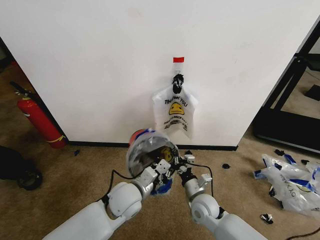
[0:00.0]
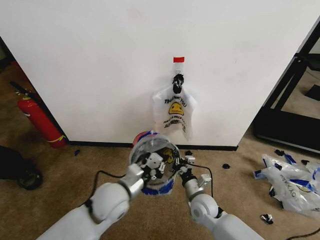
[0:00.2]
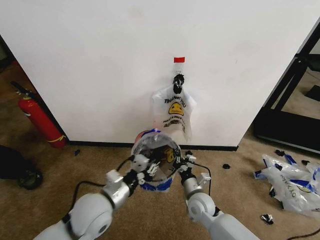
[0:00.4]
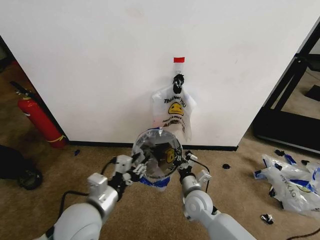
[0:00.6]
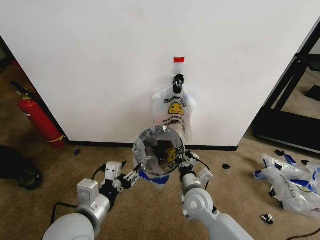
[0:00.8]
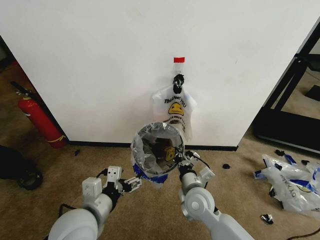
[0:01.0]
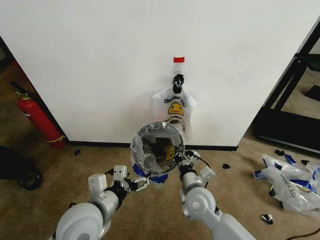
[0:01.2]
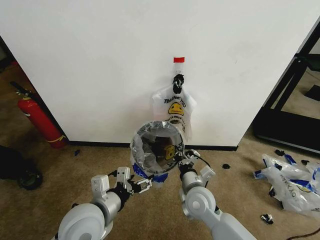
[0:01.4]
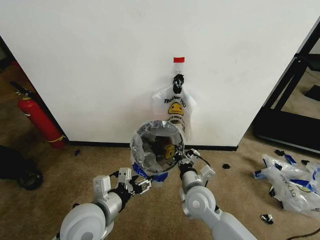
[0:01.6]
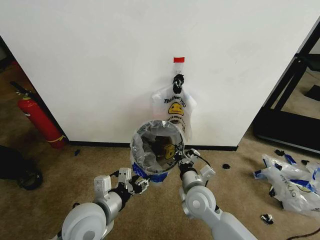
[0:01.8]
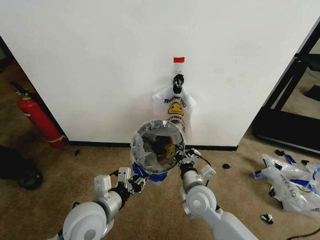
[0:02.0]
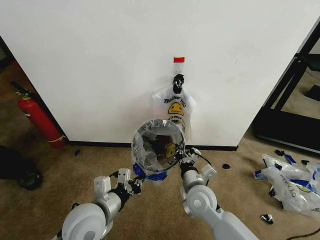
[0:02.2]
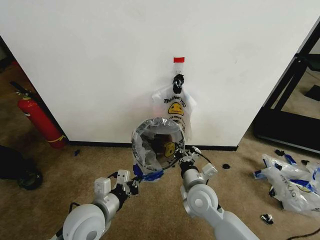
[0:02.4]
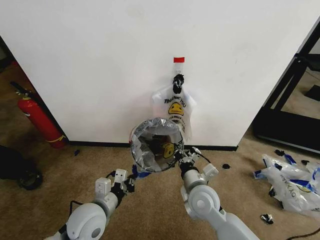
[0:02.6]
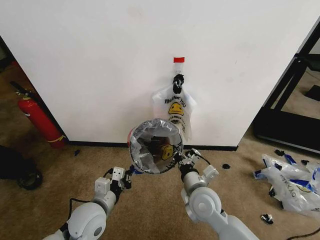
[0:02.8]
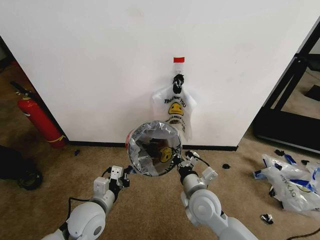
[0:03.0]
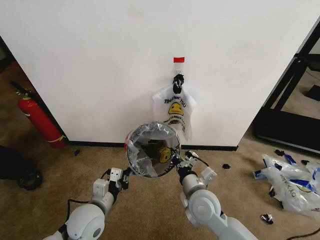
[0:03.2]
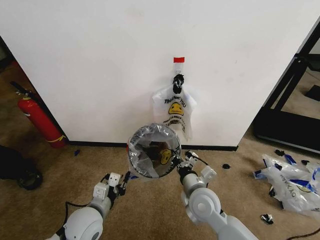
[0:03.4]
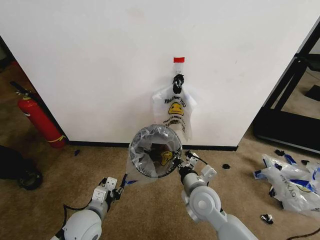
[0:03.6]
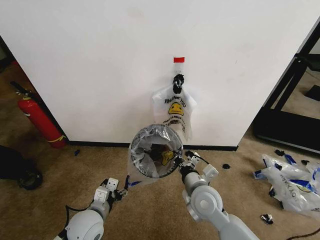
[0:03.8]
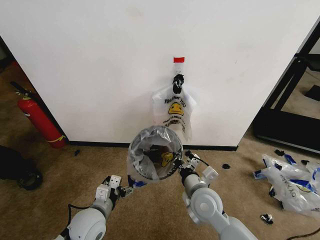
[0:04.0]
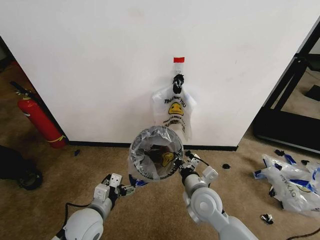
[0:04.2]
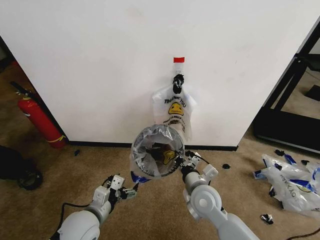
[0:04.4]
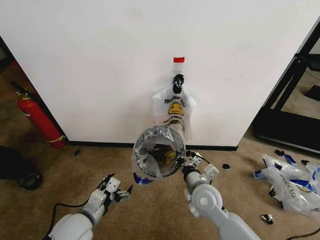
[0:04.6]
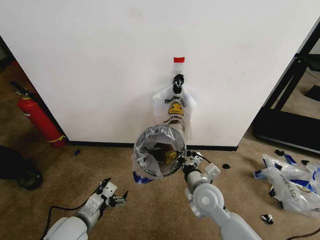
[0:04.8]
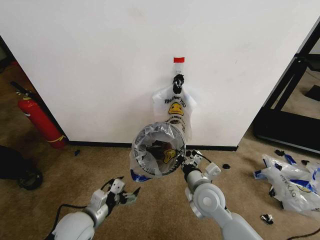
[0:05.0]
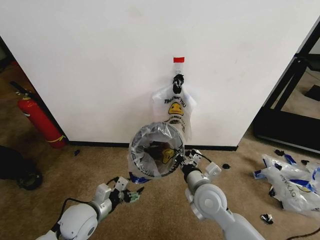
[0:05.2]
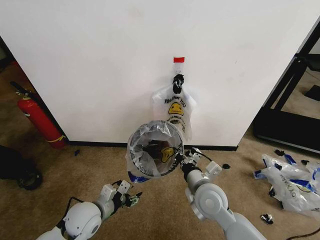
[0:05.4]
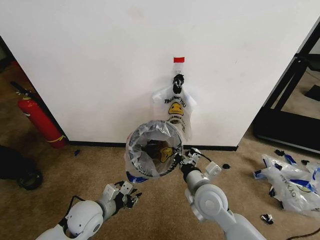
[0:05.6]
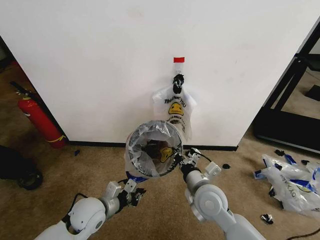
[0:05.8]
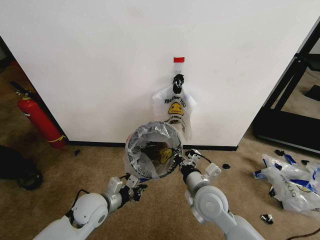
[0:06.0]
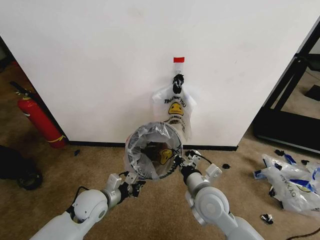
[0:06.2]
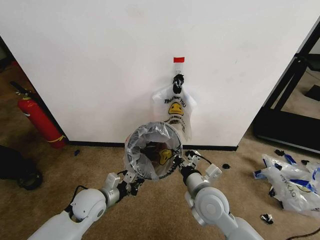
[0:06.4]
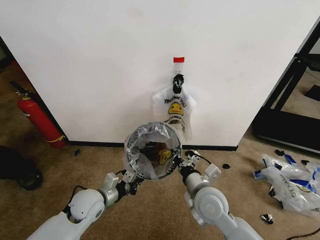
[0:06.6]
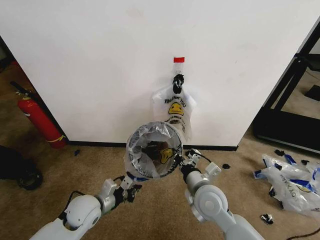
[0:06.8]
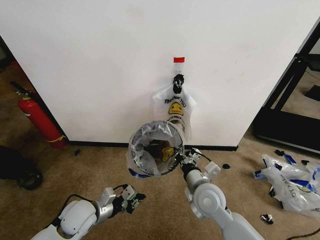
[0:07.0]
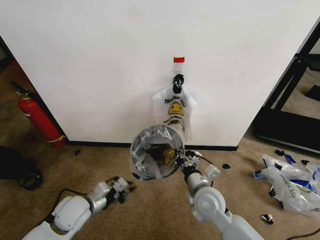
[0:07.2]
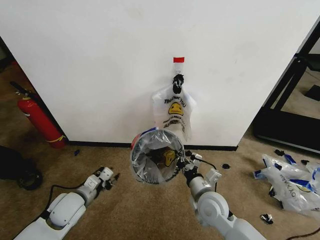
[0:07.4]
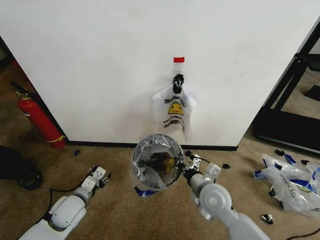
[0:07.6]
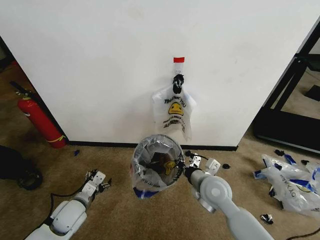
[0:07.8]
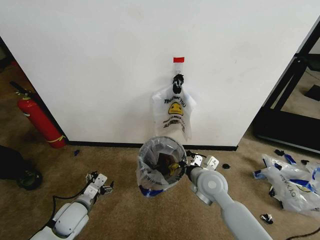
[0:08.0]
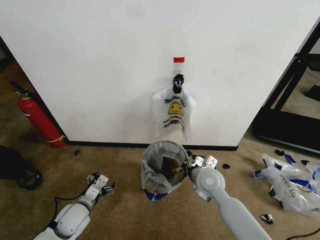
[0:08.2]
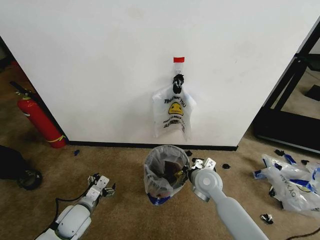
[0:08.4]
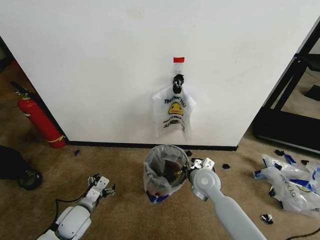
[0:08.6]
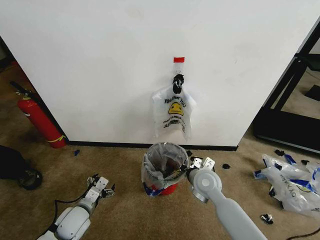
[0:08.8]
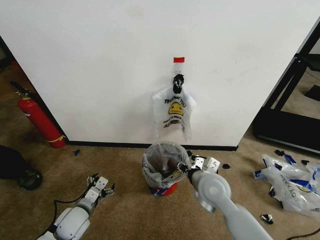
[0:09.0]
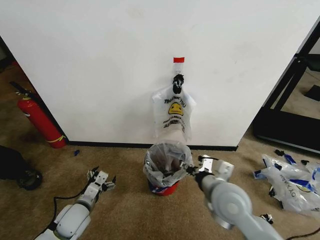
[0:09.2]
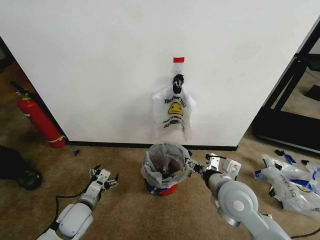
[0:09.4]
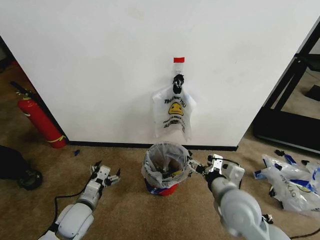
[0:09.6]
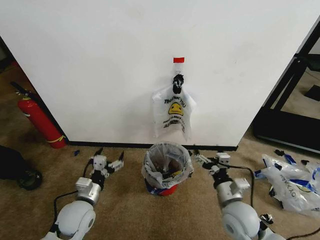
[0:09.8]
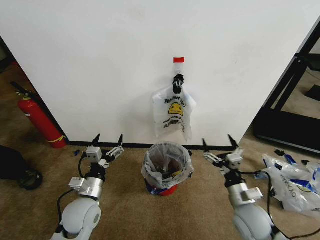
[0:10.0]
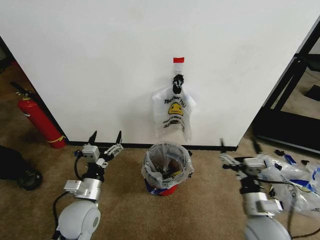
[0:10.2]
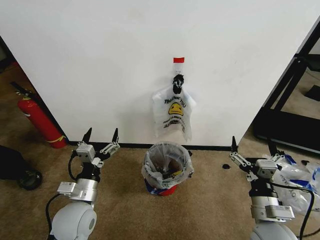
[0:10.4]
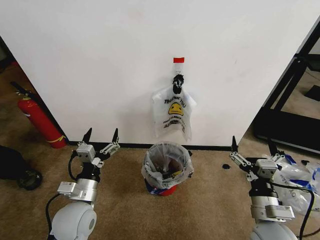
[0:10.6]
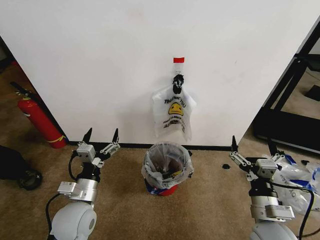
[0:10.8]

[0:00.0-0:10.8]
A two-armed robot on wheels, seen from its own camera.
Task of the whole recording: Pick up the garbage bag from the wall and place it over the trash bin.
0:00.0 to 0:01.6: The left gripper heads backward, to the left and upward, covering roughly 10 cm, and opens, while the right gripper goes about 10 cm upward.
0:01.6 to 0:03.0: The left gripper travels downward by some 10 cm, and closes its fingers.
0:03.0 to 0:04.6: The left gripper opens.
0:04.6 to 0:06.2: The left gripper heads forward, covering about 10 cm, and closes its fingers.
0:06.2 to 0:07.8: The left gripper shifts some 10 cm to the left, and opens.
0:07.8 to 0:09.2: The right gripper is displaced upward by approximately 5 cm, and opens up.
0:09.2 to 0:10.8: The right gripper travels to the right and backward by approximately 15 cm, while the left gripper shifts about 10 cm upward and to the right.

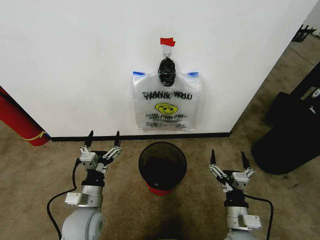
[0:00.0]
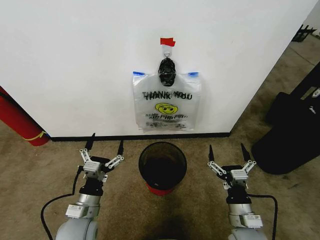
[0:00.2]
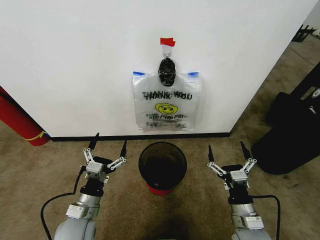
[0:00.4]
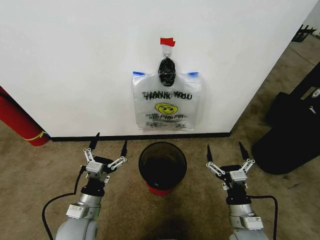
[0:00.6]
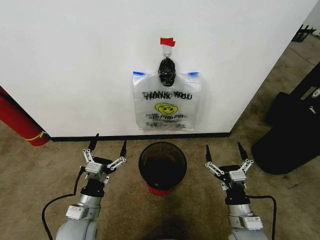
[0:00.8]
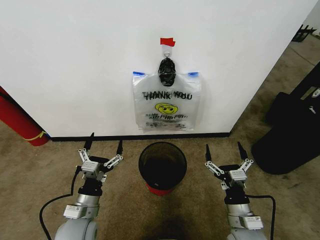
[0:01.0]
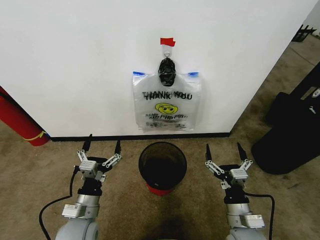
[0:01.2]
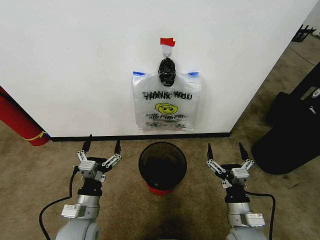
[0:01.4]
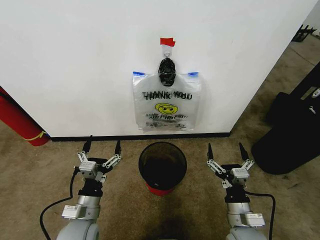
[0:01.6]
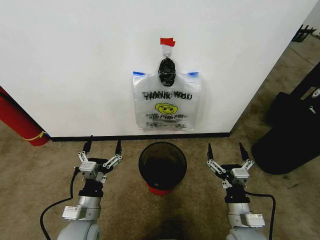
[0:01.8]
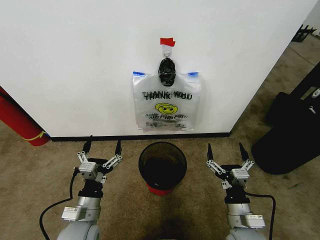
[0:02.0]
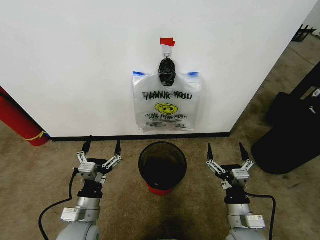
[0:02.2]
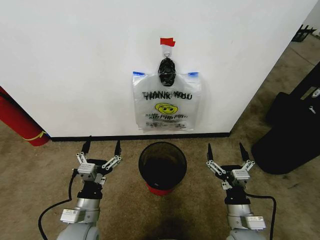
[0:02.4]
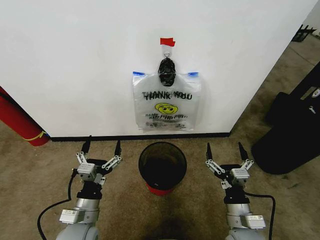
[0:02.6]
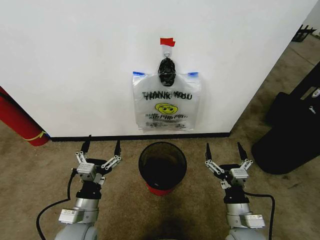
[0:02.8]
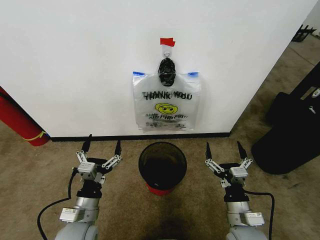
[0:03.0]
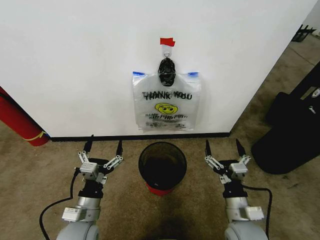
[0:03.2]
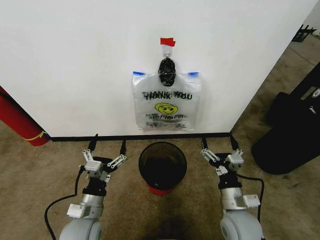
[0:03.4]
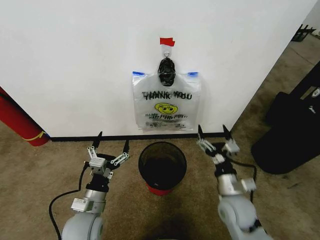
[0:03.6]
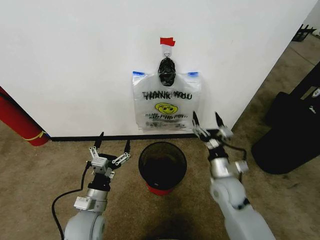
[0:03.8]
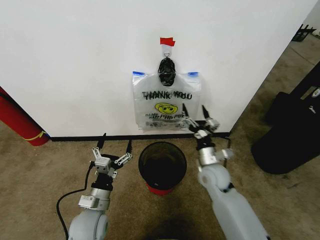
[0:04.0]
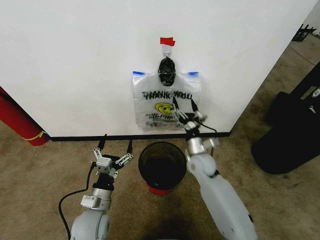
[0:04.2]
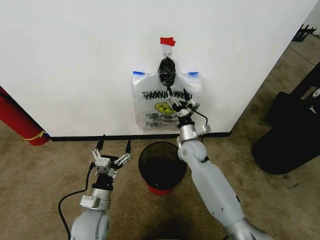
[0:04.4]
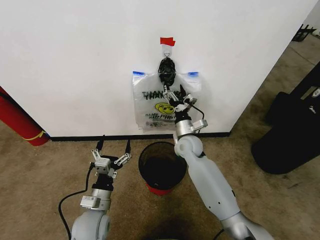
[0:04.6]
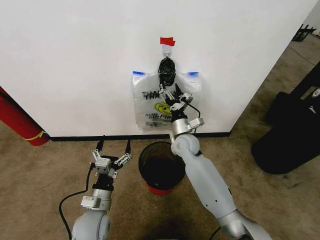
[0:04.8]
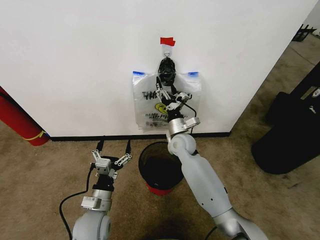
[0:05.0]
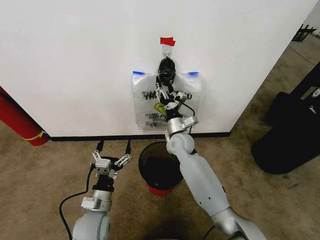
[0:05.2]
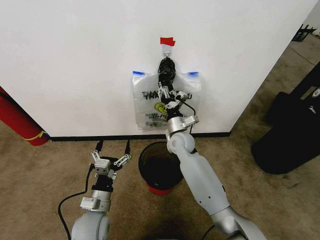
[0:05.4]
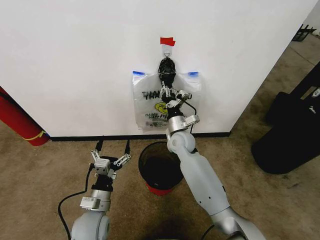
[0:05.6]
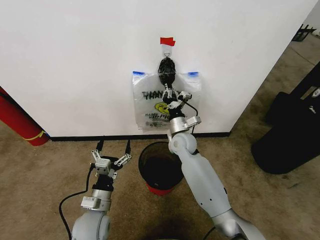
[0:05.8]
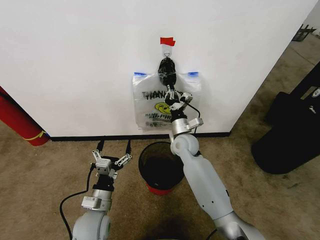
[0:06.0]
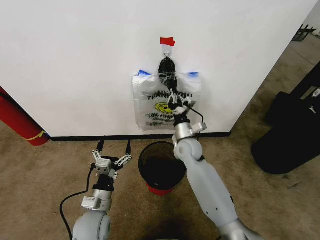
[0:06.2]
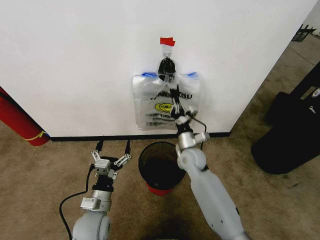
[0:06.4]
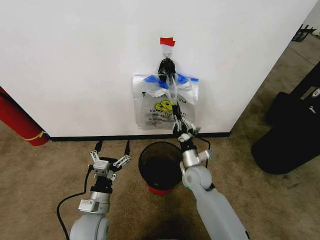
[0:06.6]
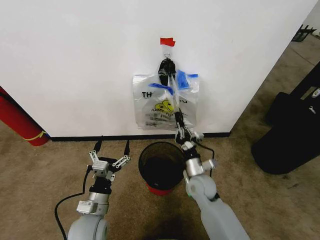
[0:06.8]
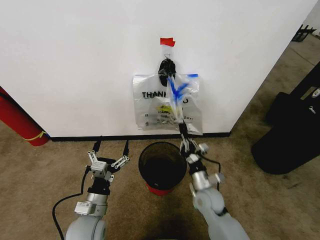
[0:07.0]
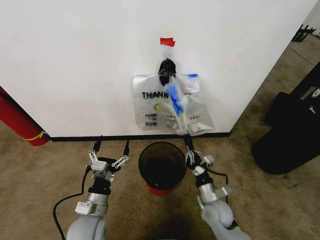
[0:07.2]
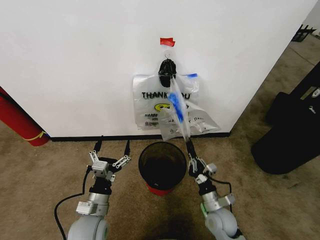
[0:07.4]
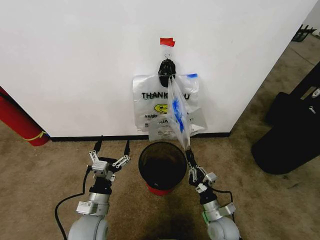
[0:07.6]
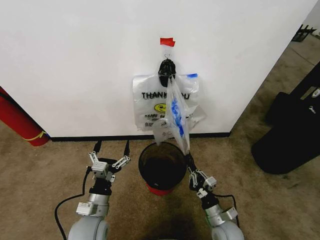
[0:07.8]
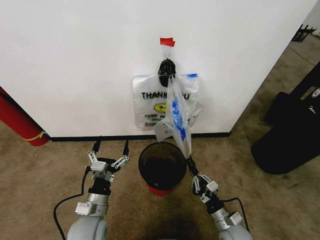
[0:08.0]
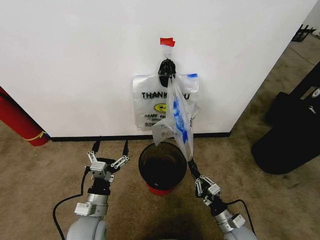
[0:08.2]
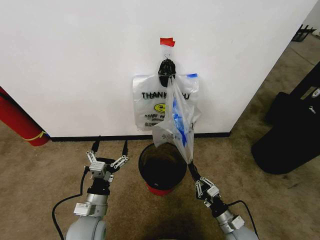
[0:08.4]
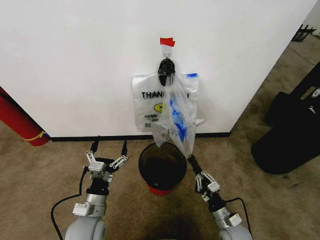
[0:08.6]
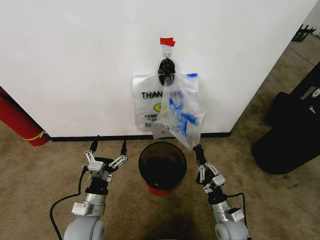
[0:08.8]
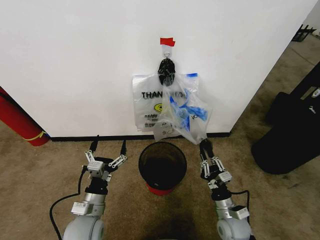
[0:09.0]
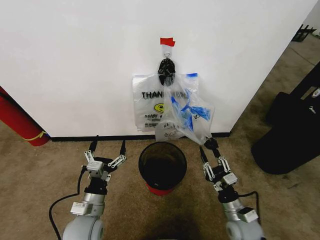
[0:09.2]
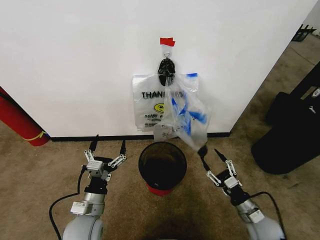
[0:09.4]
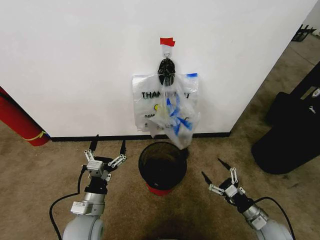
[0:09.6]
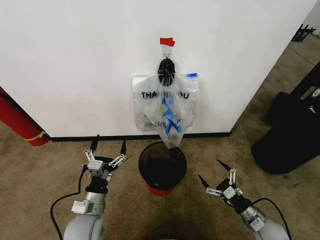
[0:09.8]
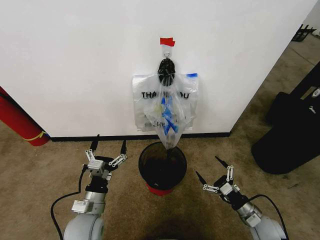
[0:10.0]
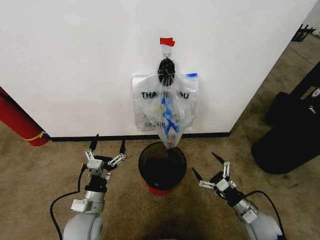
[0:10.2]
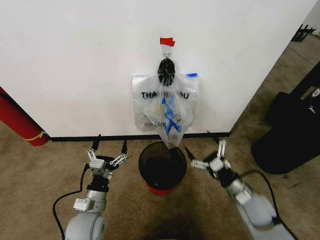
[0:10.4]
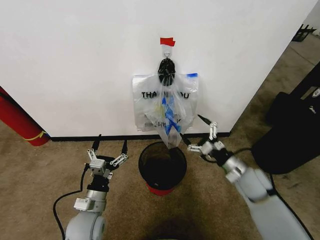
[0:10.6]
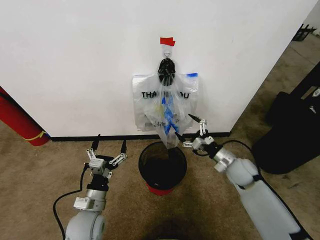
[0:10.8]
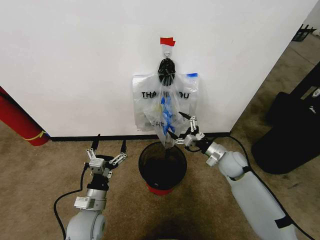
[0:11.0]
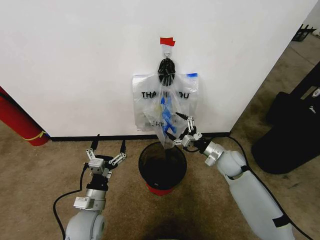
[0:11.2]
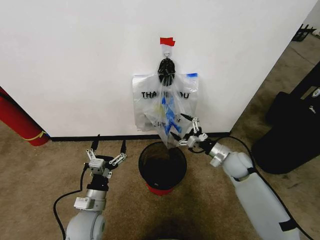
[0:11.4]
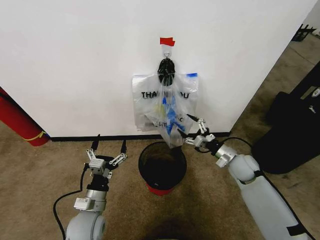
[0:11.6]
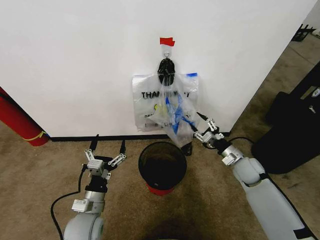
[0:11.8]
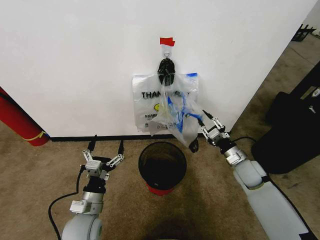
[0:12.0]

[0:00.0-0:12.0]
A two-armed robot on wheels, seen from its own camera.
Task of the whole recording: Pick up the garbage bag from the wall and place it over the trash bin.
0:01.6 to 0:03.0: The two grippers keep their place.
0:03.0 to 0:04.4: The right gripper travels forward by approximately 30 cm. Meanwhile the left gripper shifts by about 5 cm.
0:04.4 to 0:06.0: The right gripper closes.
0:06.0 to 0:07.6: The right gripper shifts about 30 cm backward, downward and to the right.
0:09.0 to 0:10.4: The right gripper goes approximately 10 cm upward, and opens its fingers.
0:10.4 to 0:12.0: The right gripper shifts approximately 10 cm forward, and closes its fingers.
